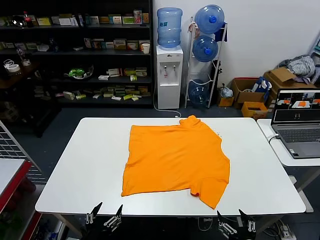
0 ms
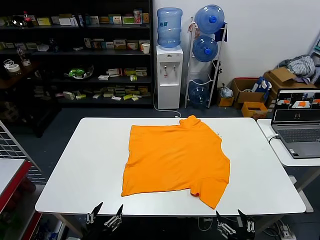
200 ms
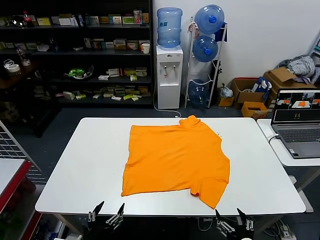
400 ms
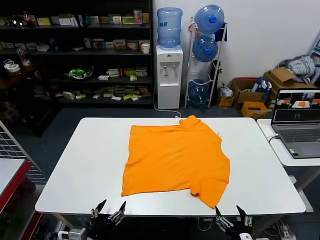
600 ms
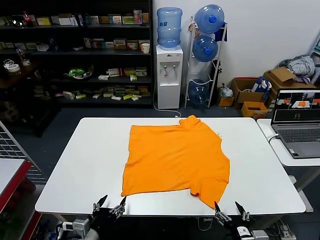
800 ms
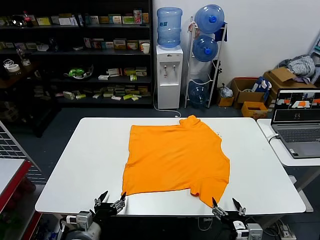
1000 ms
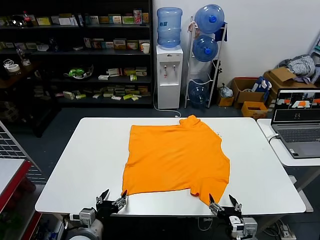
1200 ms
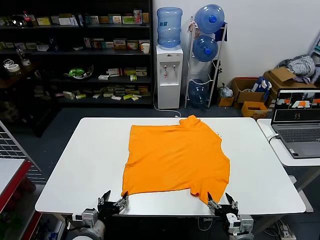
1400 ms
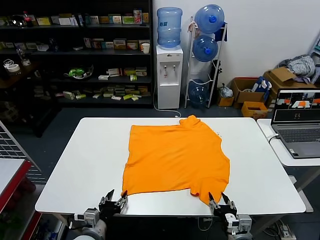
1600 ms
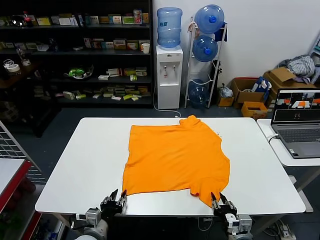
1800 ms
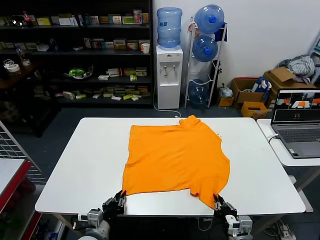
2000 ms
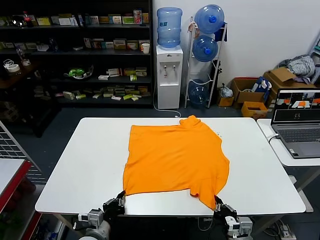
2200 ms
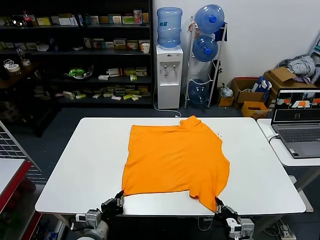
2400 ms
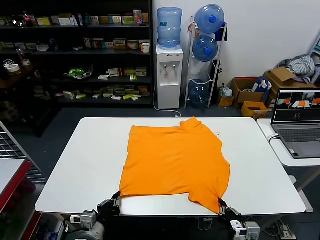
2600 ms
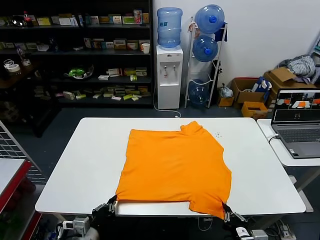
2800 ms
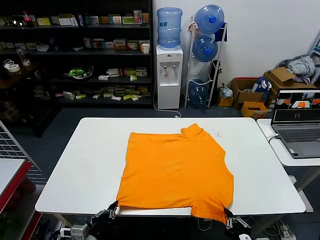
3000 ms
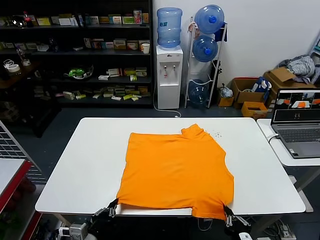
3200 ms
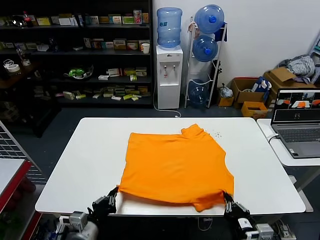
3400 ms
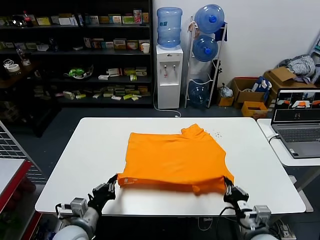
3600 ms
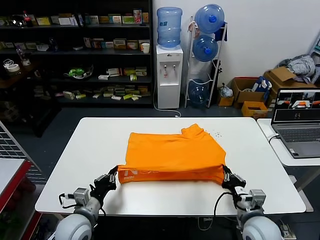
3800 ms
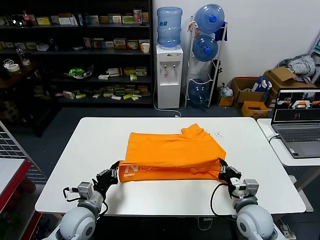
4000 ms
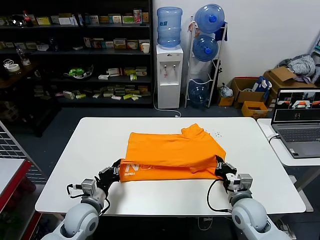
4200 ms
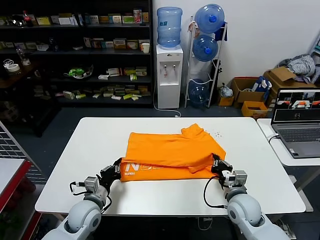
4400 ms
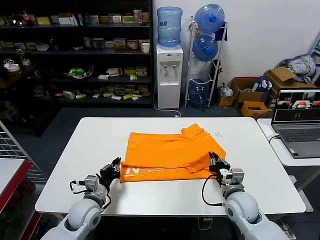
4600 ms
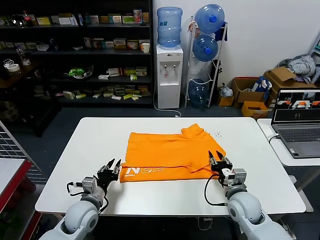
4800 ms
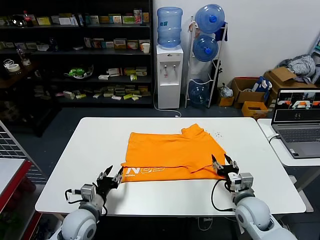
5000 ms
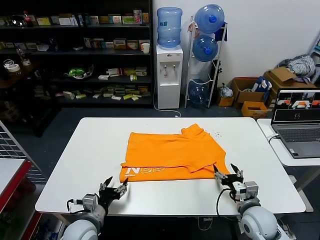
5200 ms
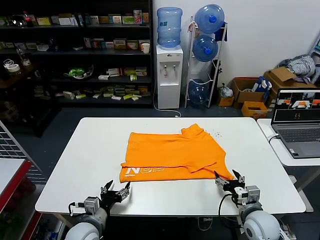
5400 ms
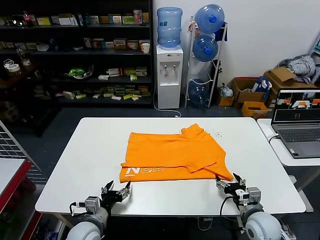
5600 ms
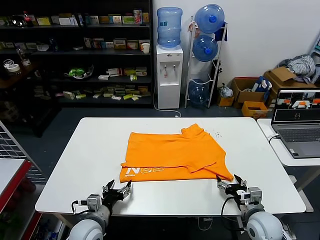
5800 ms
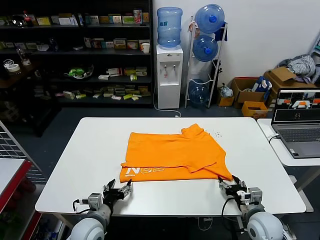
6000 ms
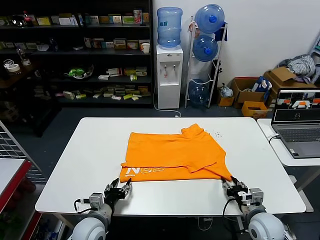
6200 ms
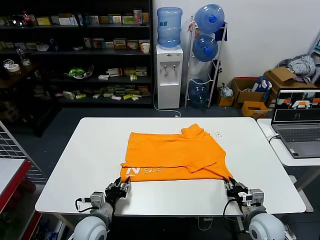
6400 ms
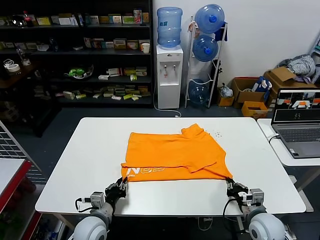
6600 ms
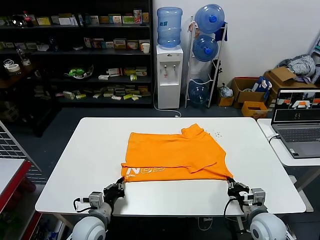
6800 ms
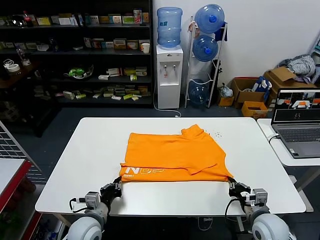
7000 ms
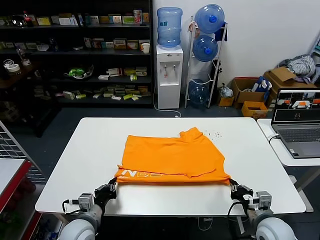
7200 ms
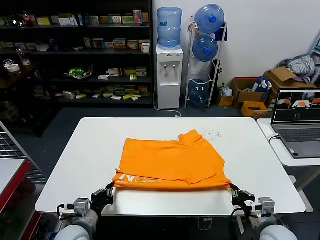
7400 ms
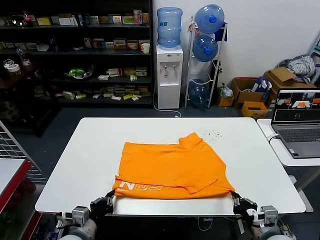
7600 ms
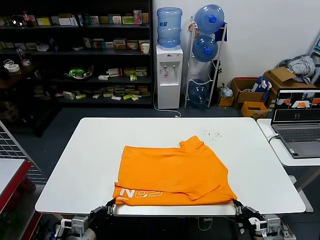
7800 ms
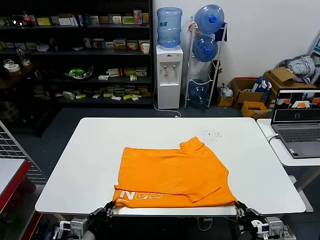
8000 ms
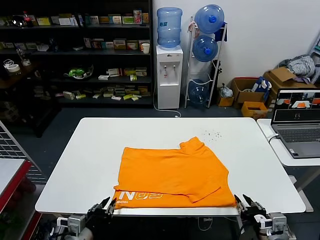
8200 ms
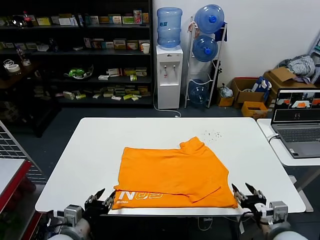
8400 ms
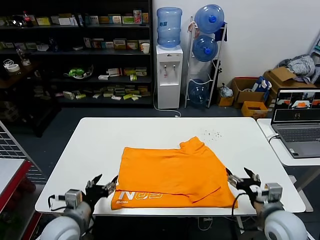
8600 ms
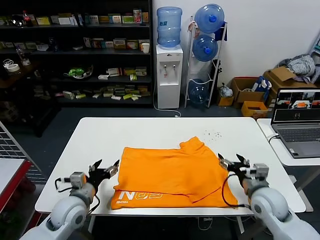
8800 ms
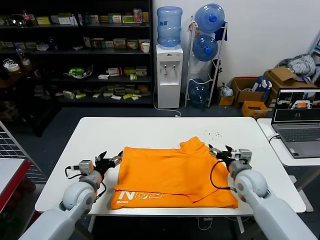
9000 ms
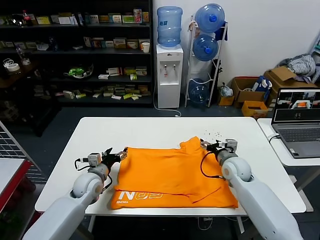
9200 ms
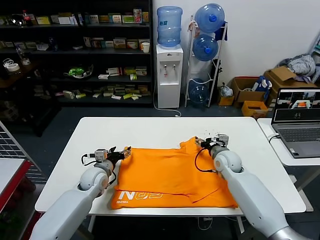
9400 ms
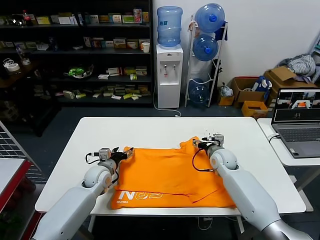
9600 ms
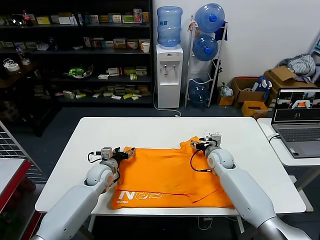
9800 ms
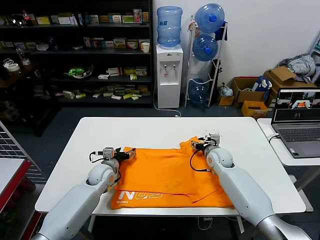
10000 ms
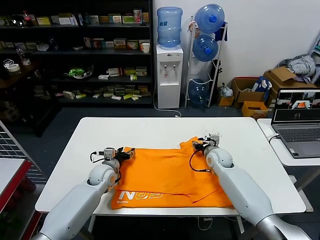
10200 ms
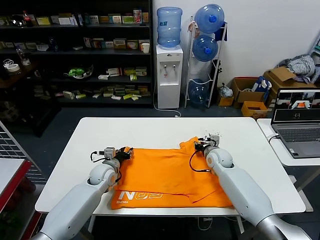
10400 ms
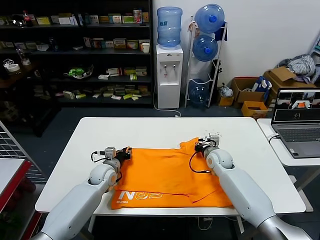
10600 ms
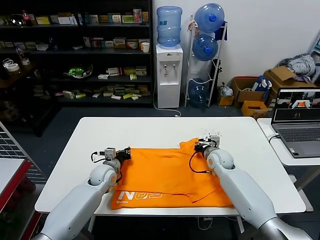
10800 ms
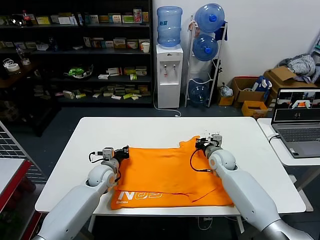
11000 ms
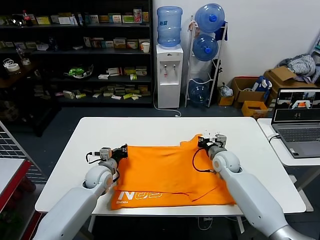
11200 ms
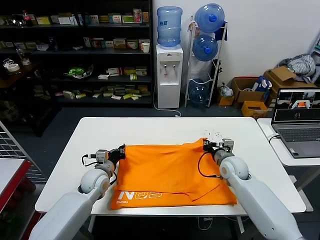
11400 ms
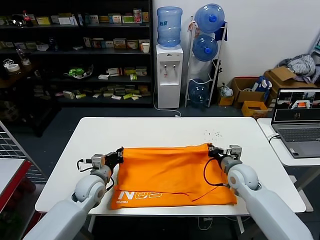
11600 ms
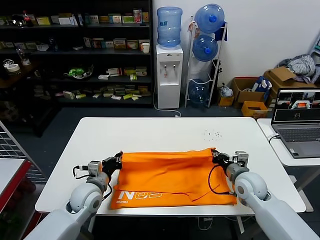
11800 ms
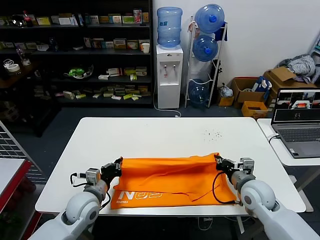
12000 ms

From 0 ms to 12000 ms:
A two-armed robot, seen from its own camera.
Task of the whole recording: fold and organize the clothes.
Step, from 0 ms to 2000 ms: use both grippers simultaneously to clamp the lower edge of the clothing fabric.
Step, from 2200 ms to 4600 ms: use both grippers to drag the lower edge of the fabric forward and fold it over the upper edge.
Step, from 4800 ms to 8200 ms: Drag the clothes downward with both gripper.
Step, from 8400 ms to 10800 ms: use both grippers simultaneously to clamp the upper edge of the clothing fabric.
From 1600 ms to 3000 ms: The grippers both shift backward and upward by roughly 10 cm. The right gripper closes; the left gripper closes up.
From 3000 ms to 4400 ms: The two grippers go some 20 cm forward.
From 4400 ms to 6000 ms: The right gripper heads to the right and backward, covering about 10 cm, and opens its fingers; the left gripper shifts by about 5 cm, and opens its fingers.
From 6000 ms to 7600 ms: Both grippers move backward, roughly 5 cm. The left gripper closes up. Meanwhile the right gripper closes.
From 7600 ms to 9000 ms: Both grippers travel together forward, about 20 cm. The right gripper opens. The left gripper opens up.
From 9000 ms to 10400 ms: The left gripper shifts roughly 10 cm forward and downward, and closes. Meanwhile the right gripper is displaced forward and to the left by roughly 10 cm, and closes.
From 10400 ms to 12000 ms: The right gripper shifts roughly 15 cm backward. The left gripper goes approximately 15 cm backward and upward, and closes its fingers.

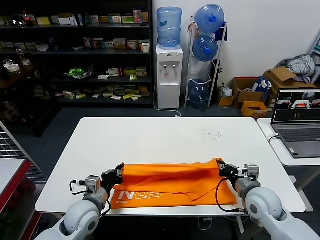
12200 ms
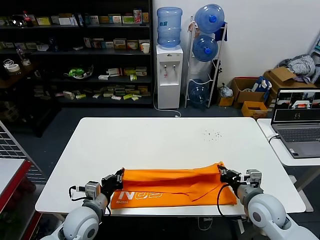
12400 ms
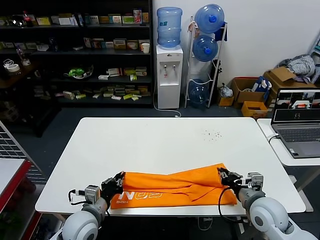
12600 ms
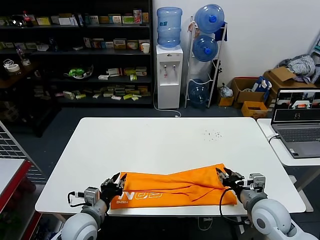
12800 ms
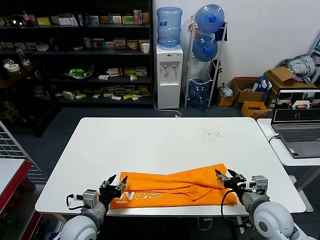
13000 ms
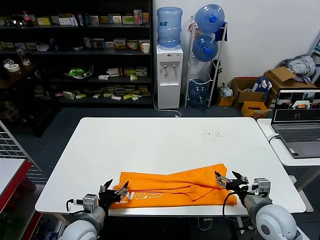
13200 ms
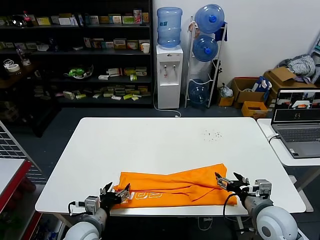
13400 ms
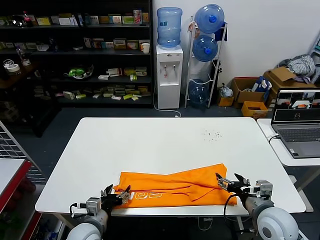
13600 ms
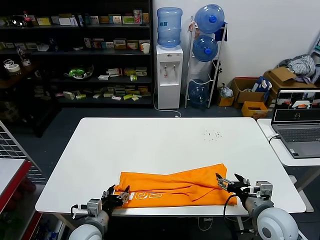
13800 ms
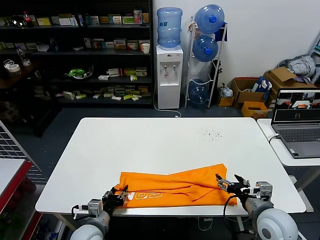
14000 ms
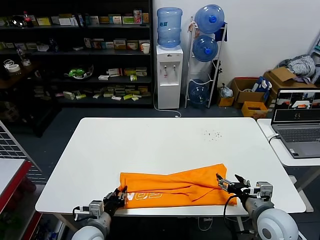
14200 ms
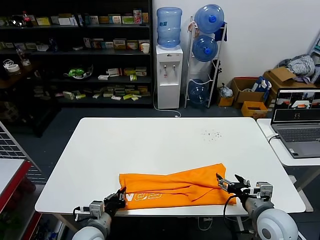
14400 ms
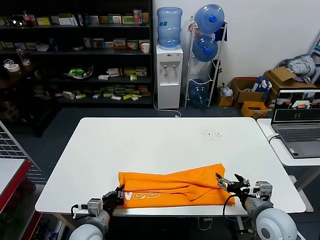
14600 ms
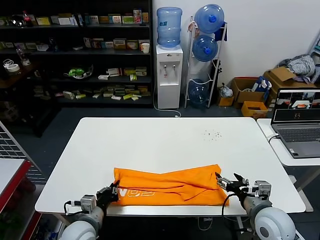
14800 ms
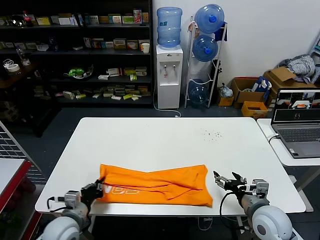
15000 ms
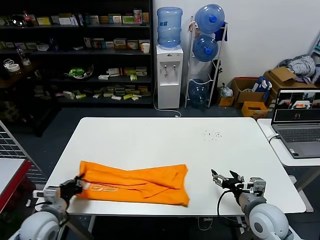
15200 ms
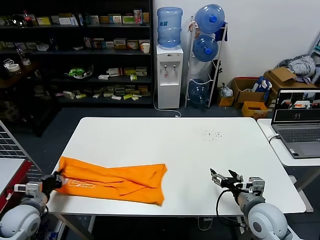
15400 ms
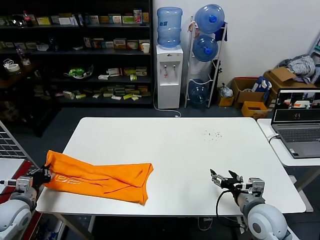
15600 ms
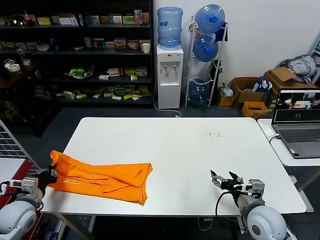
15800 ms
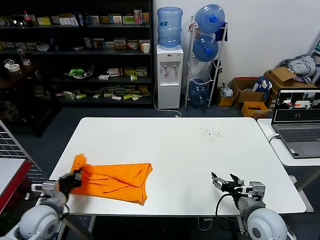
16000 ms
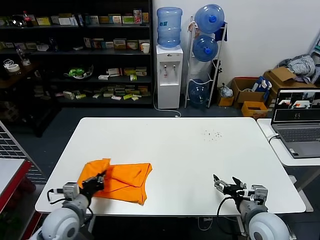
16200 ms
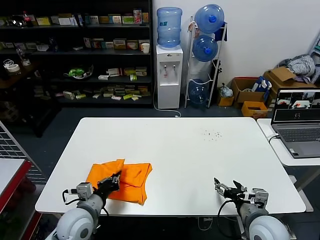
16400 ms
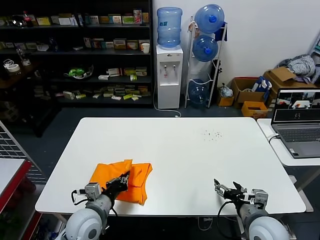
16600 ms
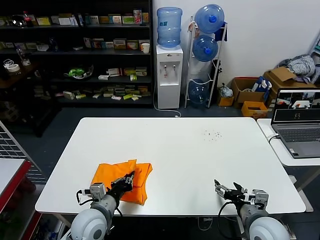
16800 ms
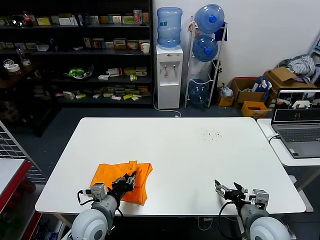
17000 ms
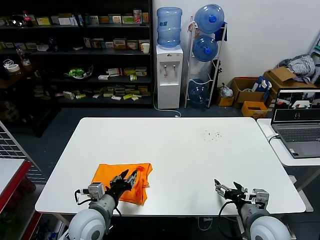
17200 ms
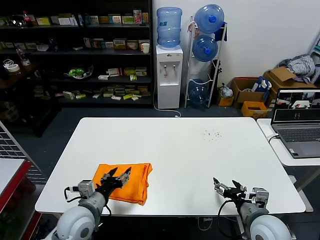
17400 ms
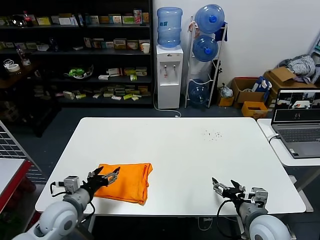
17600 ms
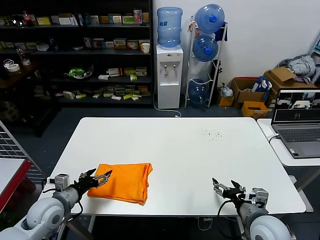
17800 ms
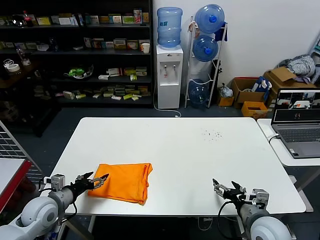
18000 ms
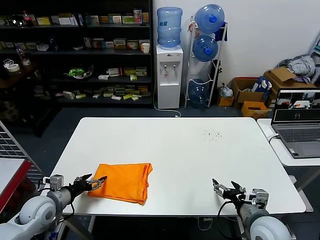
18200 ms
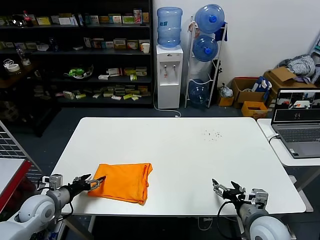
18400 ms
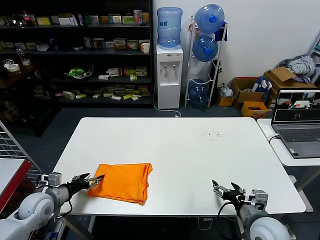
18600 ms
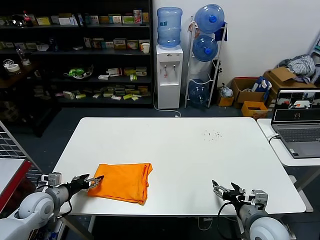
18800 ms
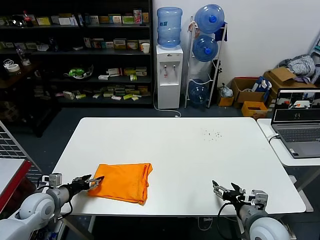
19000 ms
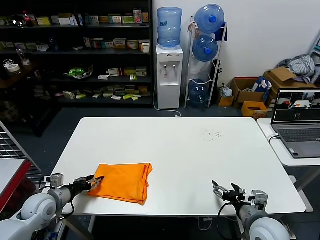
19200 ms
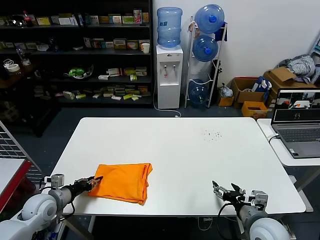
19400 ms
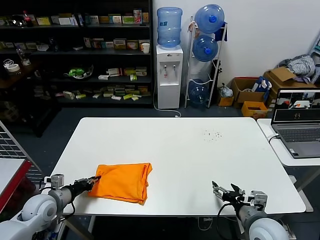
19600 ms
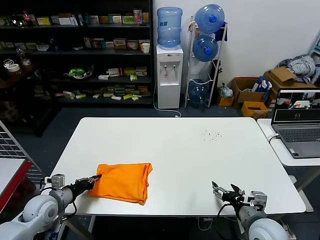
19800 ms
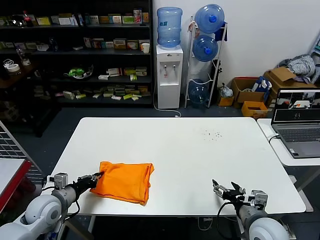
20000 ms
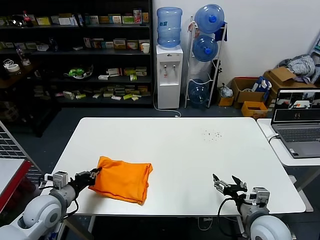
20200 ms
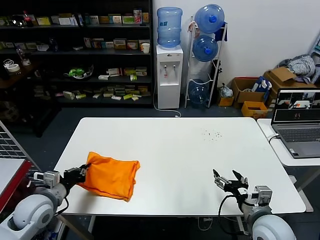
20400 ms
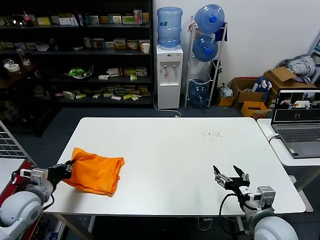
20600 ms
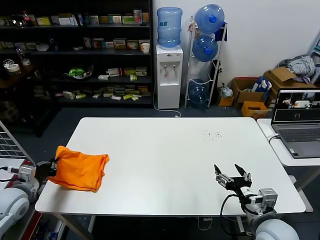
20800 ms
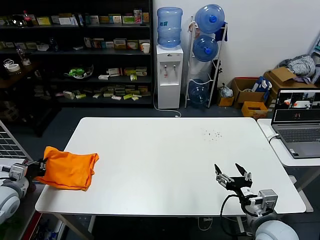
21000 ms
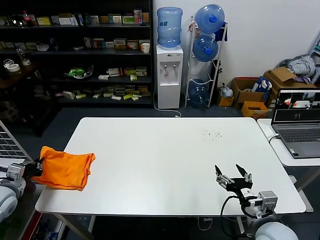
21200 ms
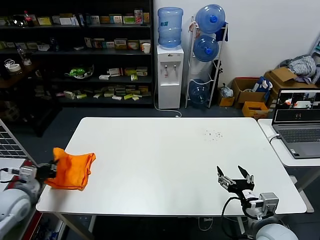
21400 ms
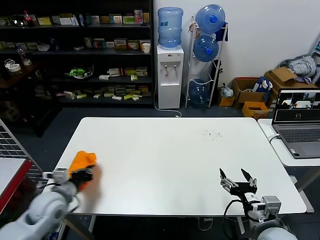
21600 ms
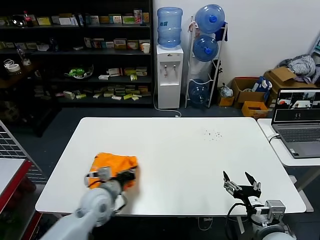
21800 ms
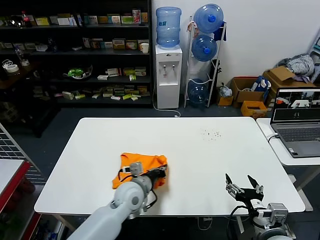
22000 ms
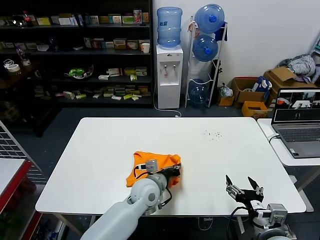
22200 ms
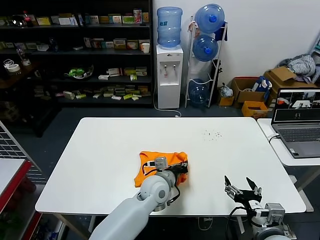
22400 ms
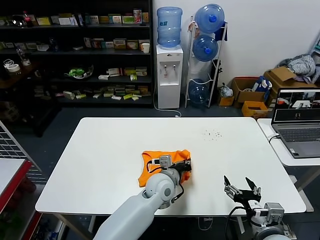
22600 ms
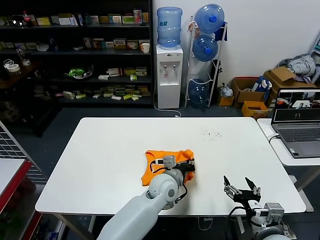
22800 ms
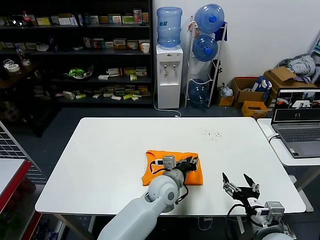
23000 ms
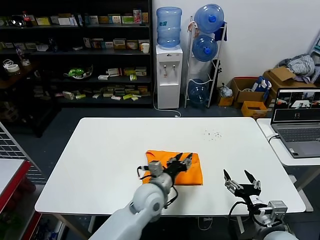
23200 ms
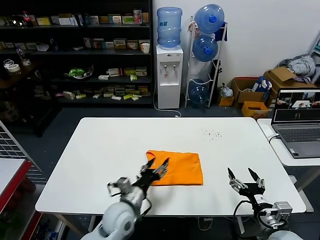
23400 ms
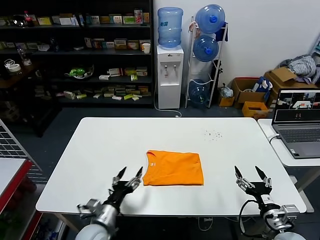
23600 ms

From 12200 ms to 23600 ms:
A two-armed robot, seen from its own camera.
Task of the whole recording: fold and organize the clothes.
Step, from 12800 ms to 14400 ms: use the left gripper to clamp the left edge of the fabric.
Step, from 14600 ms to 17200 ms: use the left gripper to drag the left edge of the fabric to the left and folds it over the right edge.
Step, from 17400 ms to 23000 ms: Flip the folded clothes over with left gripper.
From 12200 ms to 13600 ms: The grippers both shift backward by roughly 5 cm. The left gripper opens its fingers, while the right gripper opens up.
From 13600 ms to 15000 ms: The left gripper shifts about 5 cm to the left, and closes up.
From 15000 ms to 16400 ms: The left gripper goes to the left and returns, some 20 cm each way.
From 16400 ms to 17800 ms: The left gripper heads to the left, covering about 10 cm, and opens its fingers.
From 17800 ms to 19400 ms: The left gripper heads to the left, covering about 5 cm, and closes.
From 19400 ms to 20800 ms: The left gripper goes roughly 10 cm upward, and closes.
From 20800 ms to 22200 ms: The left gripper heads to the right, covering some 35 cm.
From 22200 ms to 23600 ms: The right gripper heads to the right and downward, covering about 10 cm. The left gripper moves to the left and backward, approximately 15 cm, and opens its fingers.
